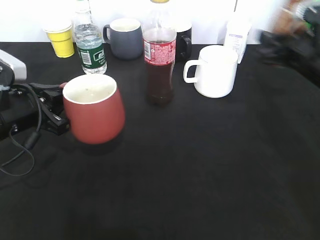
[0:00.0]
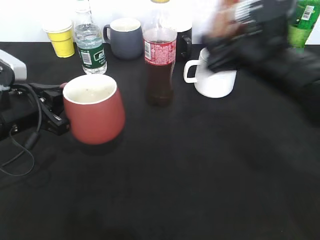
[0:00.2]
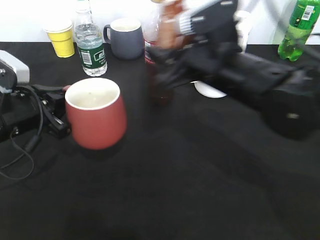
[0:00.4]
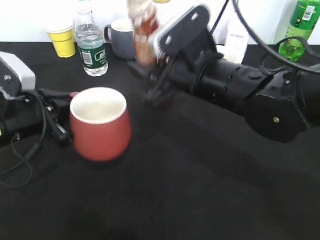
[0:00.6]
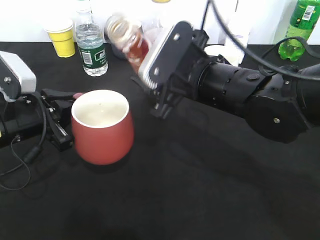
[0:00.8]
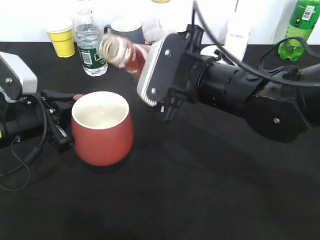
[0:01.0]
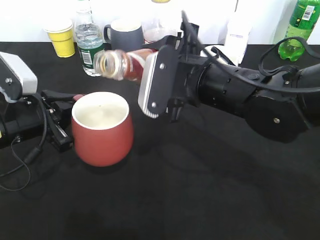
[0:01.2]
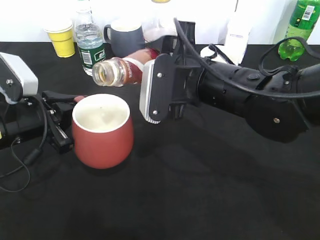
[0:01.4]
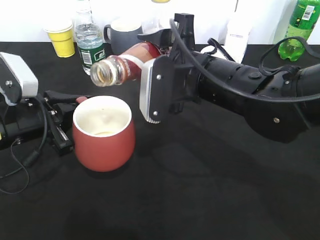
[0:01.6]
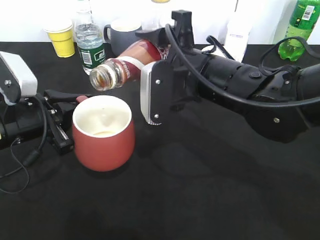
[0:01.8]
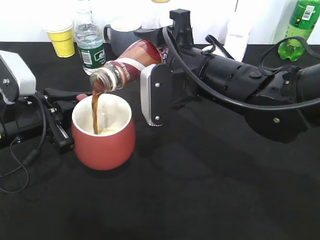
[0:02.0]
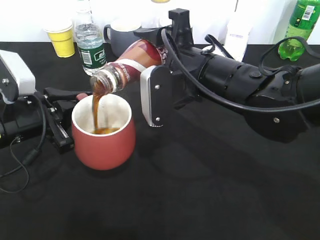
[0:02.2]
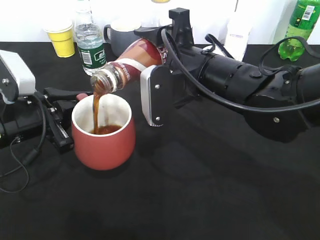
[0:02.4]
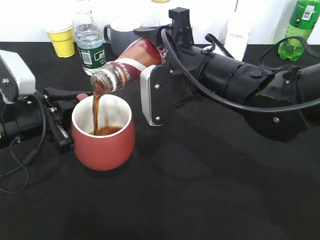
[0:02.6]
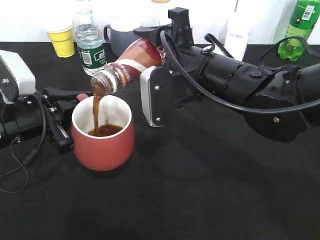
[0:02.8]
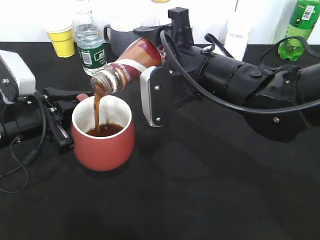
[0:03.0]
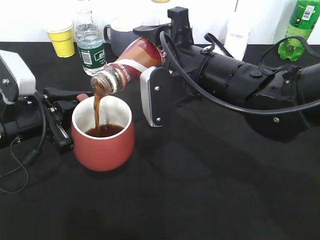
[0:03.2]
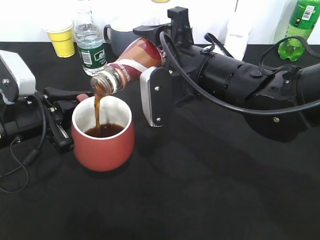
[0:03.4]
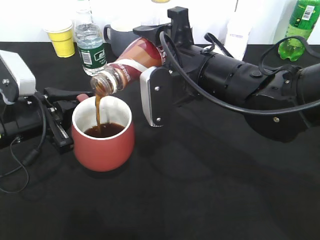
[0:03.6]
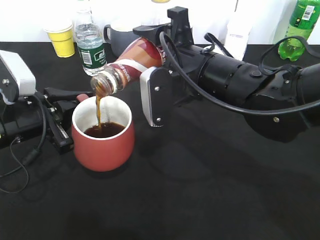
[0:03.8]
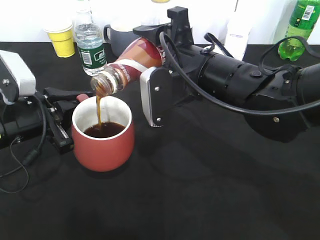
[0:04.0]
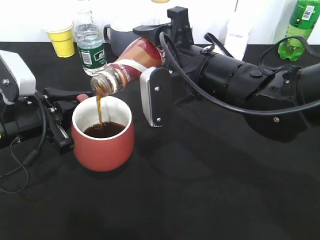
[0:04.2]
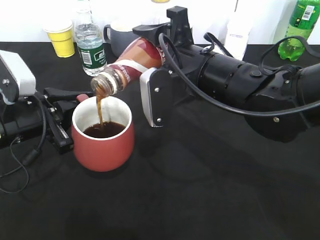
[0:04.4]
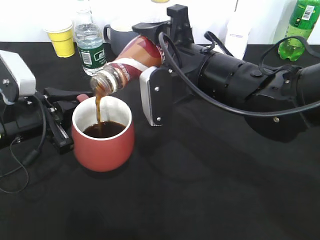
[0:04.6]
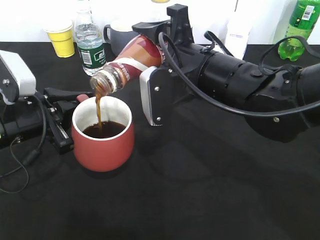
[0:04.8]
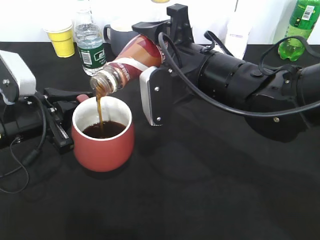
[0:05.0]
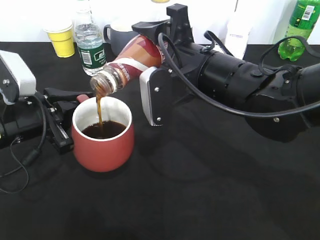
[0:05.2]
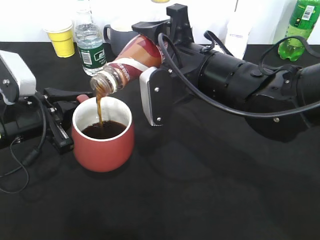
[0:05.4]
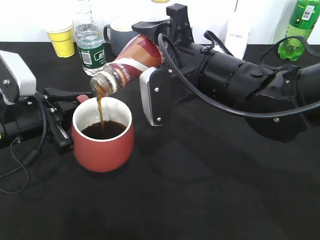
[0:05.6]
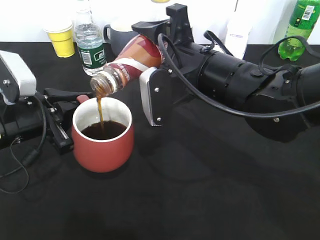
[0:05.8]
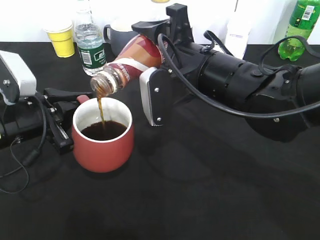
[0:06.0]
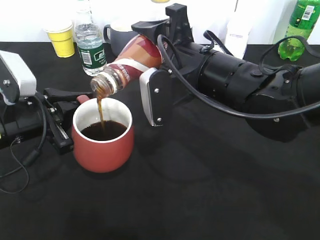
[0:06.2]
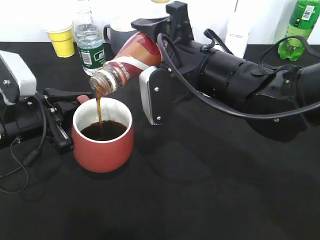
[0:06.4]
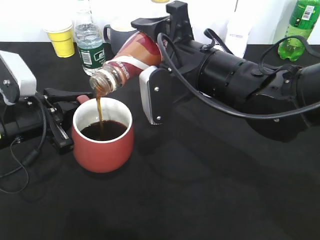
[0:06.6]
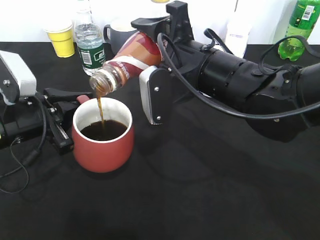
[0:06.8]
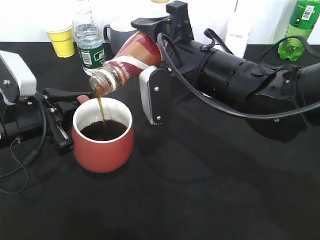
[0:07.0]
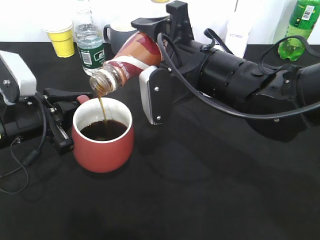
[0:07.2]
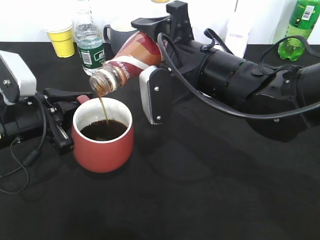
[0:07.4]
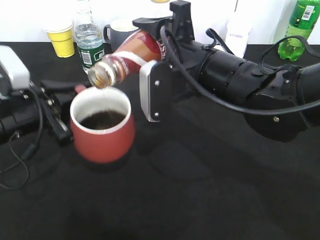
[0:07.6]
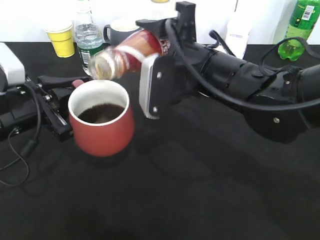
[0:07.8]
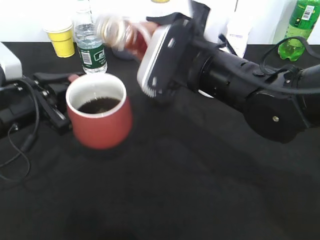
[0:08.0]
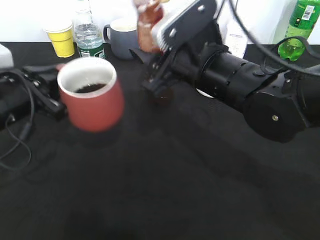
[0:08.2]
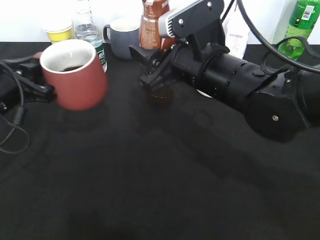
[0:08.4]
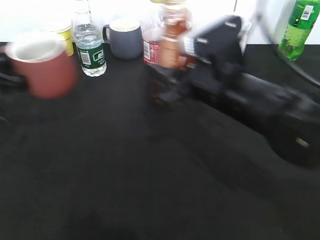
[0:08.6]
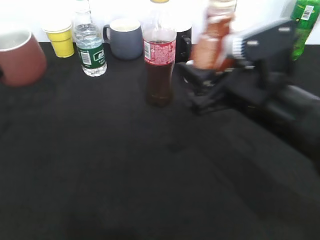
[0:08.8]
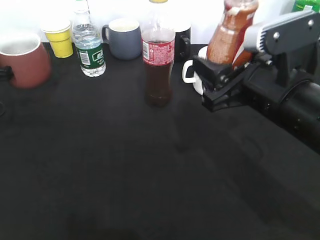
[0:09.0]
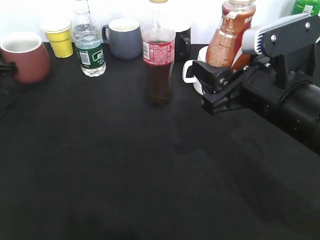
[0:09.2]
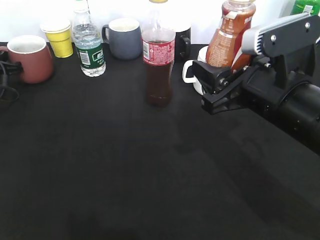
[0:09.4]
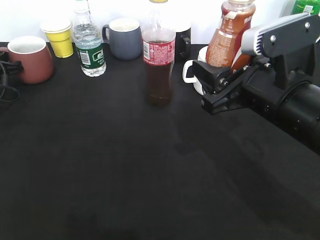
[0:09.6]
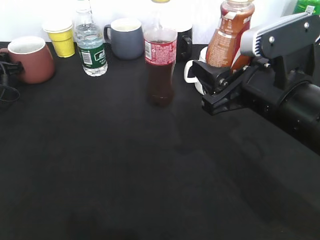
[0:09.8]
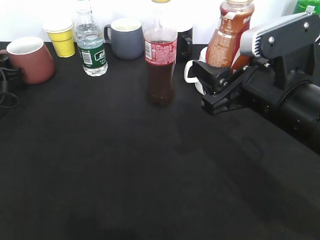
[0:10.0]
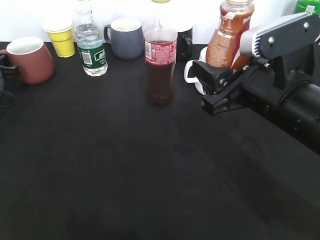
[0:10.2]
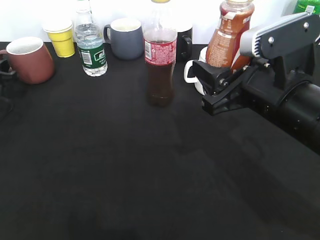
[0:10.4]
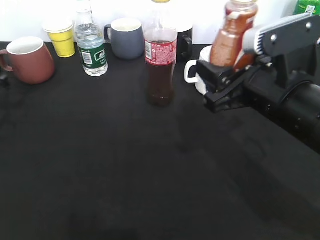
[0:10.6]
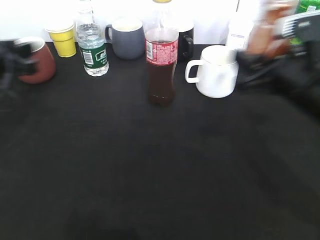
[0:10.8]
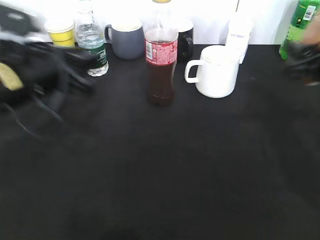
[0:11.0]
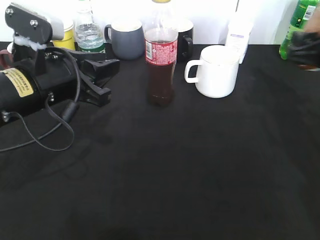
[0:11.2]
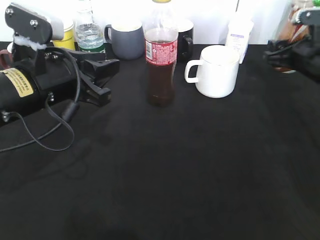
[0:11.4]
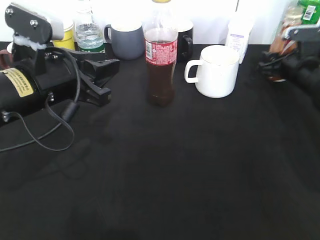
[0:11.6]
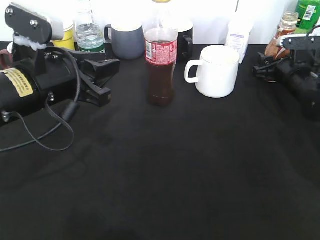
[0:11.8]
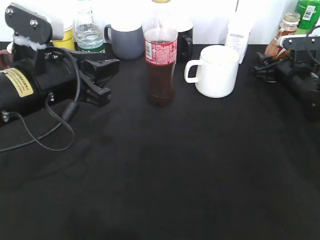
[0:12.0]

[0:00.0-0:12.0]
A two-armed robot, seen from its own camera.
Step, 0.0 to 7.8 s: Pour the coffee from bottle to cup with right gripper.
Step, 8.0 to 10.0 s: Place the red cup on the table with left gripper.
0.0 to 1.6 s: The right gripper heads to the left, covering some 15 cm.
1.6 to 3.0 s: The grippers make only small movements.
3.0 to 6.0 s: Both grippers stay put.
6.0 to 7.6 s: There are only small adjustments of the grippers.
7.6 to 9.0 s: The left gripper moves to the left and forward, about 15 cm. The right gripper is displaced to the right and backward by some 10 cm.
10.4 to 12.0 s: The right gripper goes some 30 cm forward, to the right and downward. The left gripper travels to the right, backward and upward by roughly 25 cm.

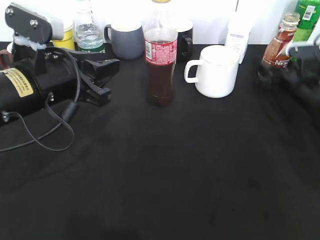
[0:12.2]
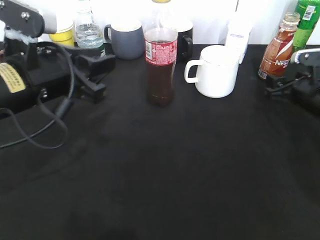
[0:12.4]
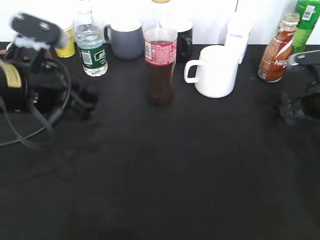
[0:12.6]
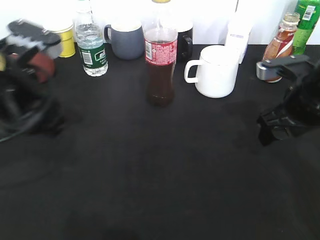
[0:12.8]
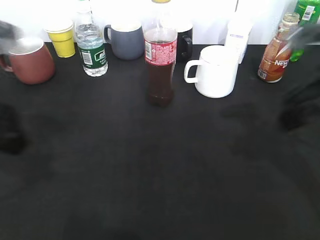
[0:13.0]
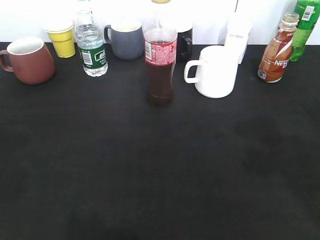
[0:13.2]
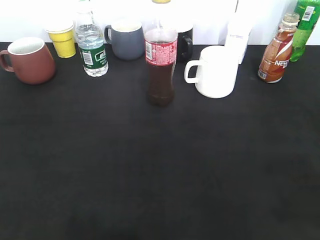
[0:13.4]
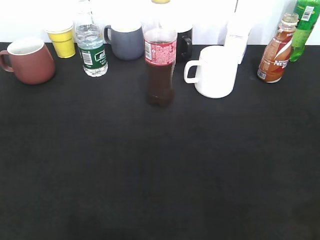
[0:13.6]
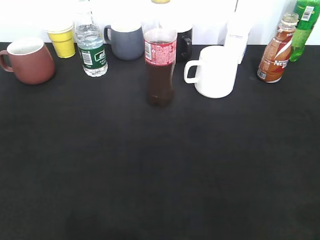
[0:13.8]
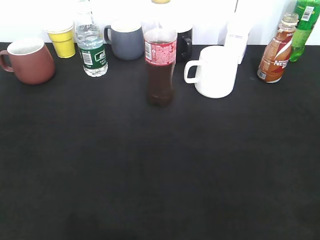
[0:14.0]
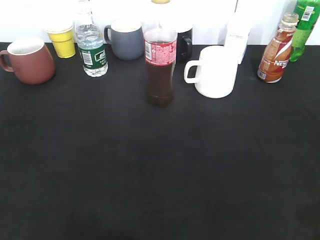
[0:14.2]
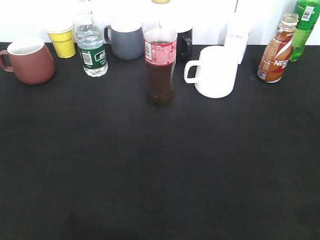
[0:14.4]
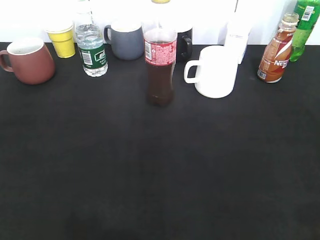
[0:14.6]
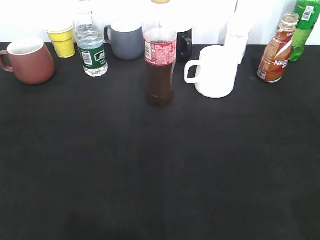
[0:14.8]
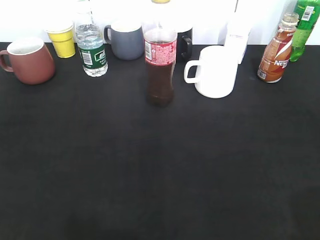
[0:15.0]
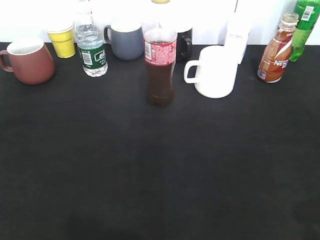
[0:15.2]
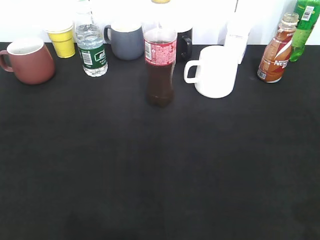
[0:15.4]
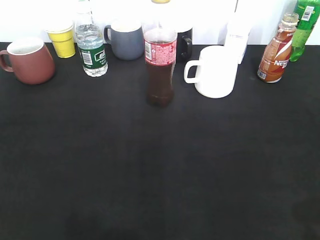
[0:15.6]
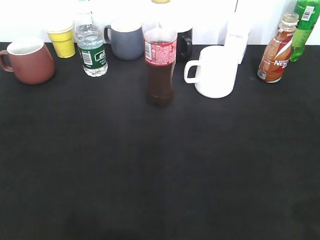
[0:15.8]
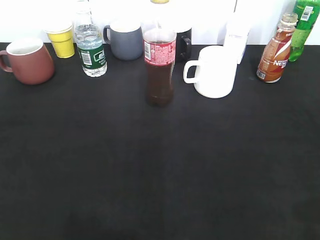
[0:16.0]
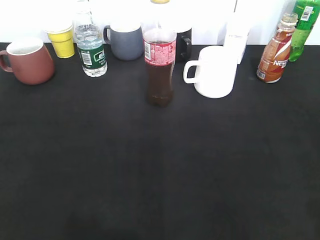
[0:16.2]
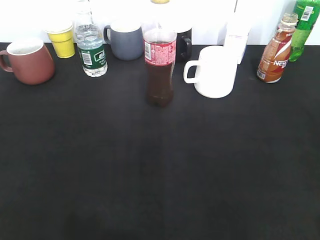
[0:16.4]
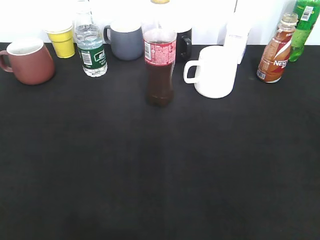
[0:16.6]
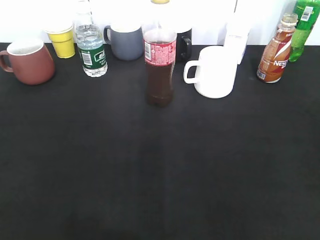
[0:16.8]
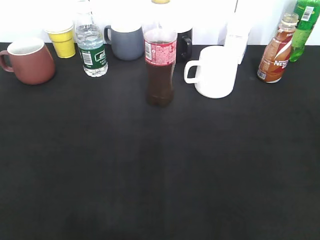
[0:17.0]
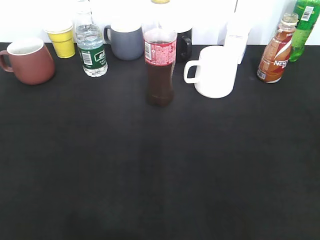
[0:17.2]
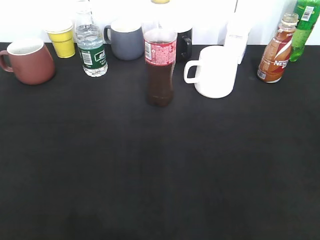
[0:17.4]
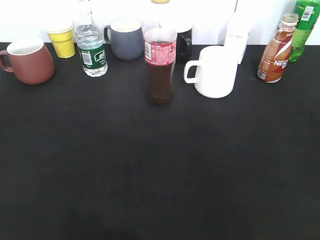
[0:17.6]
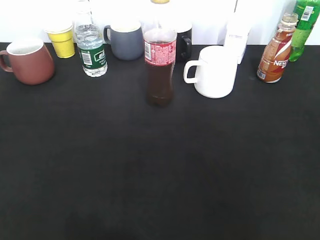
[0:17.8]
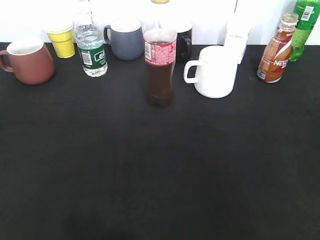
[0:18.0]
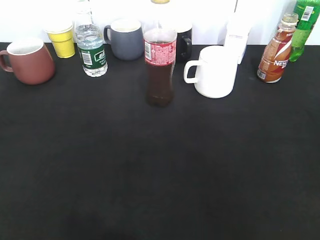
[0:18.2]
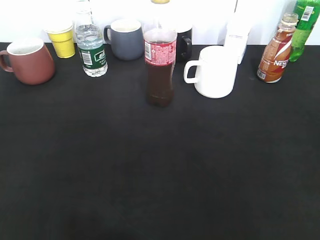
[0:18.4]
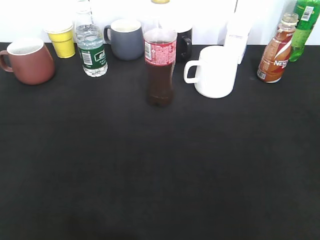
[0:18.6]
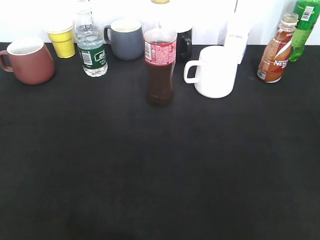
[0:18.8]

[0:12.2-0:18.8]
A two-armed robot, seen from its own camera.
12.2 to 13.8 s: The left gripper heads backward and to the left, covering some 25 cm. The right gripper travels backward and upward by approximately 40 cm.

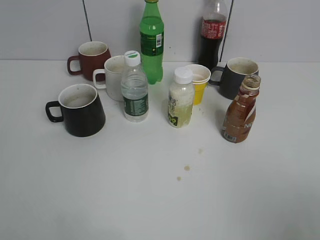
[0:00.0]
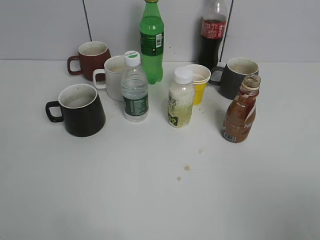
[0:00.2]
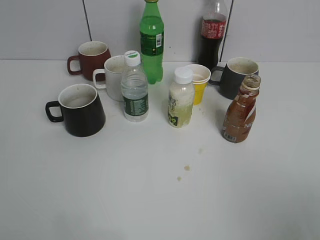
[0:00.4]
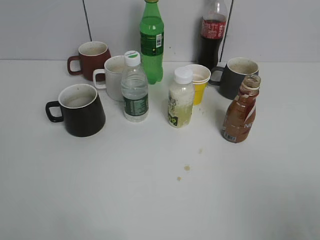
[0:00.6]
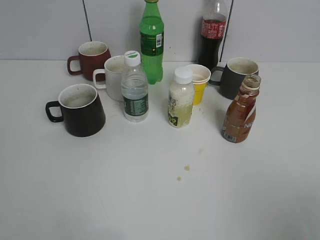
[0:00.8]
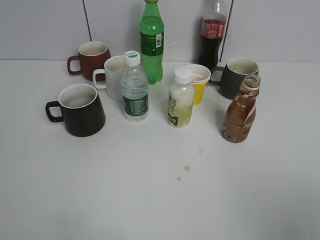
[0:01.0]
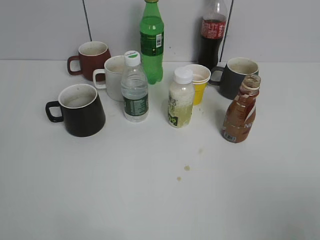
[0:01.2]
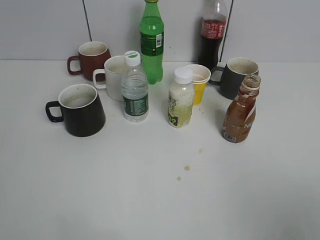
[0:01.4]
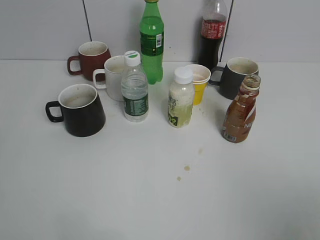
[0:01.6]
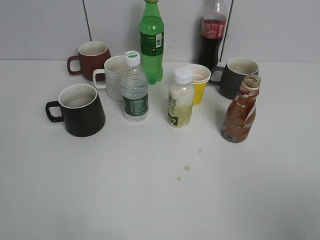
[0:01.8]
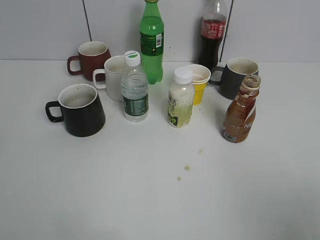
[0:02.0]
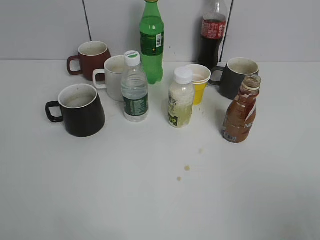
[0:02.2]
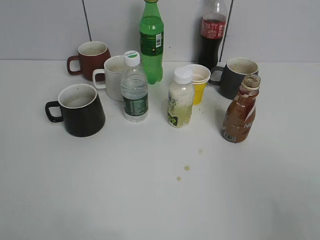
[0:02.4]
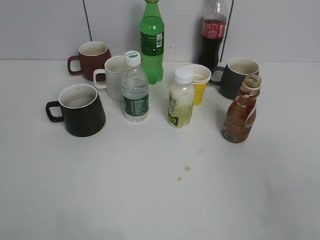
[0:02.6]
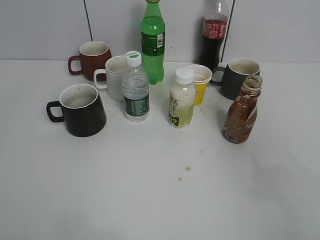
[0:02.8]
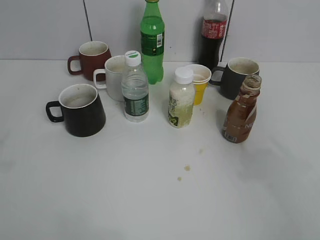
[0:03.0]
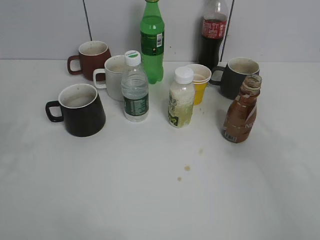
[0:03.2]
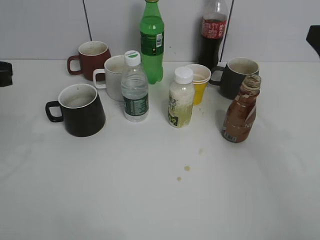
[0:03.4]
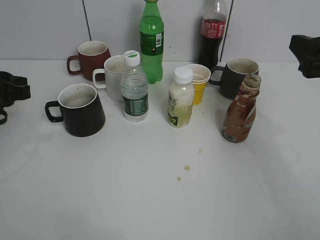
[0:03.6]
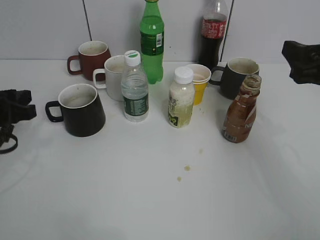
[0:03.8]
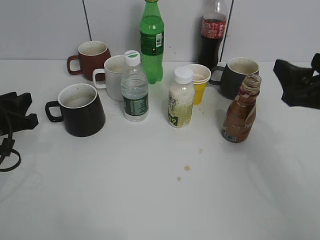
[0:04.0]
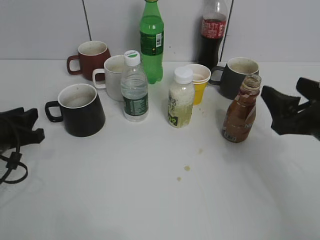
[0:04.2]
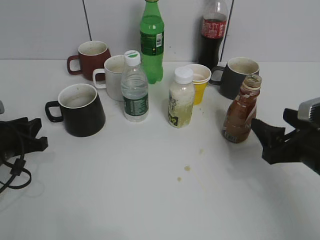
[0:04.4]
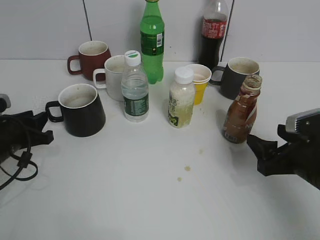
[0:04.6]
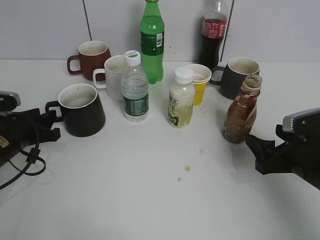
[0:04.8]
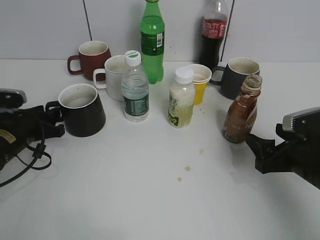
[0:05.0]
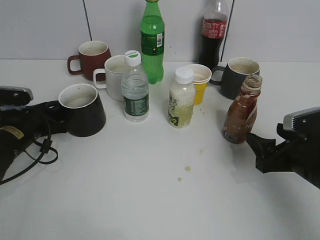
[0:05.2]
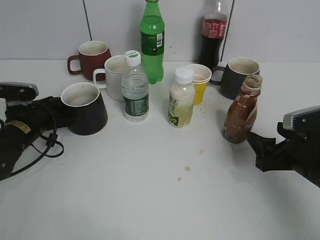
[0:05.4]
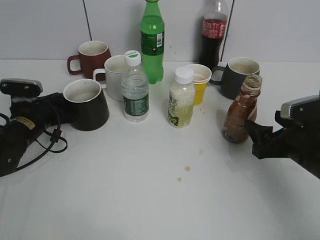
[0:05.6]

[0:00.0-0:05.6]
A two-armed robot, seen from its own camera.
Step, 2.2 to 5.4 s: Grasp the black cup with left gripper.
1.4 to 2.8 s: The two grippers go some 10 cm forward.
2.8 to 4.2 s: The grippers both shift downward and forward by some 25 cm.
4.2 to 5.6 s: The left gripper heads forward and downward, covering some 10 cm, while the right gripper moves downward, approximately 5 cm.
